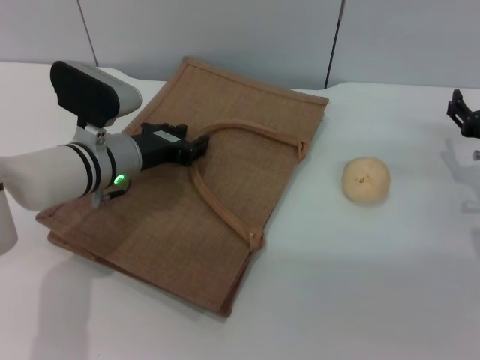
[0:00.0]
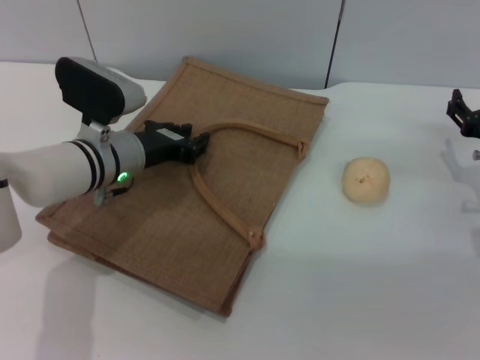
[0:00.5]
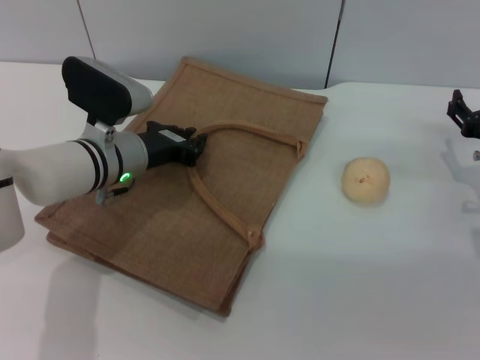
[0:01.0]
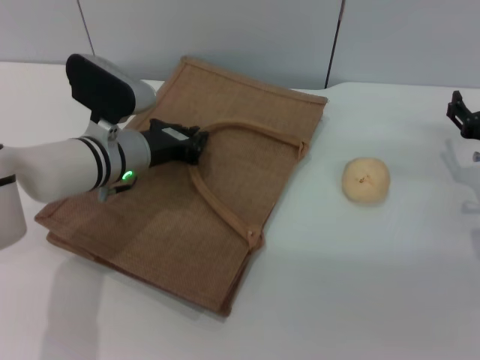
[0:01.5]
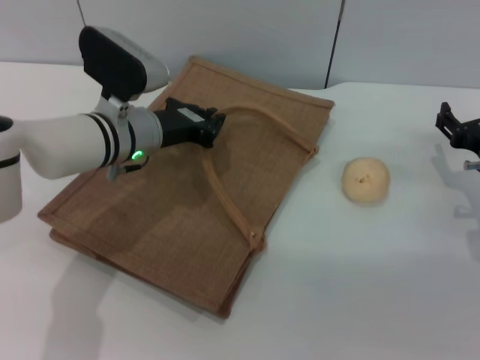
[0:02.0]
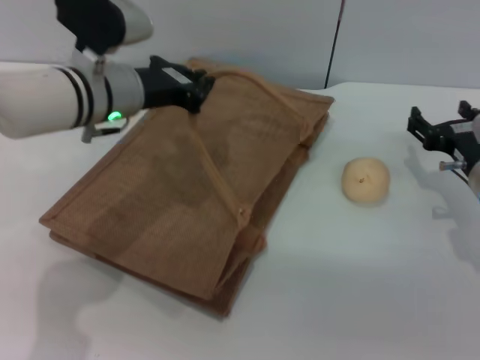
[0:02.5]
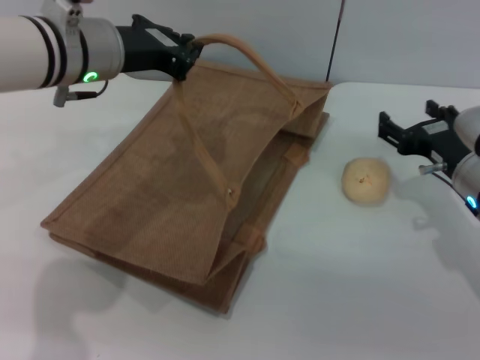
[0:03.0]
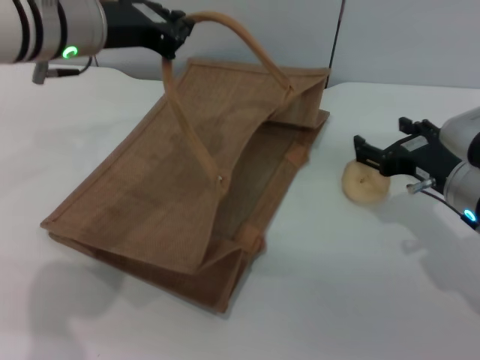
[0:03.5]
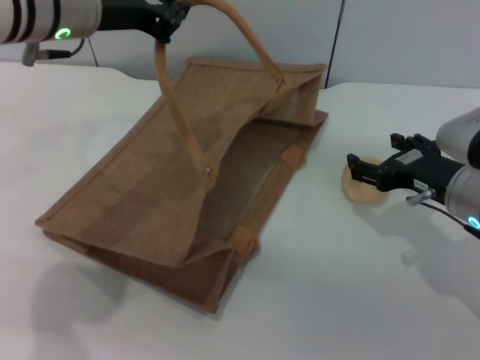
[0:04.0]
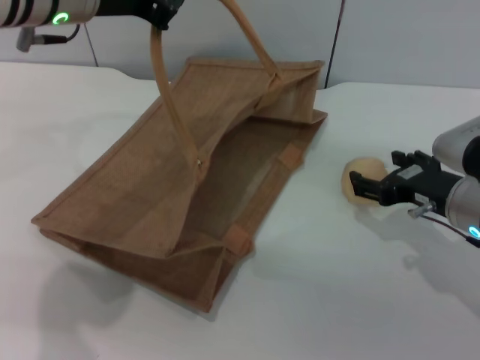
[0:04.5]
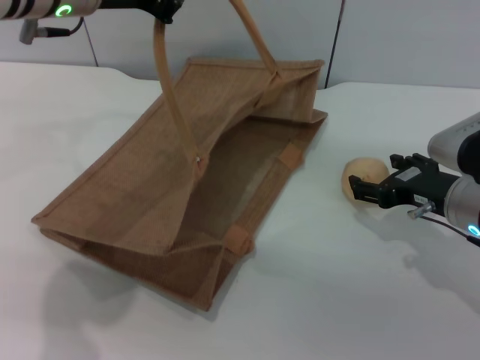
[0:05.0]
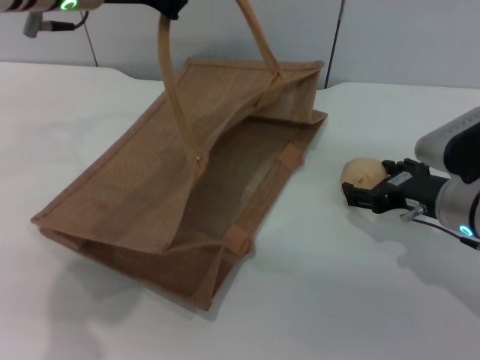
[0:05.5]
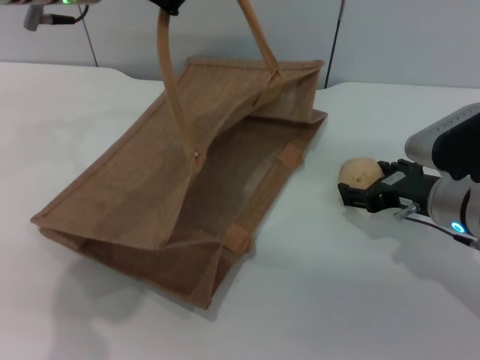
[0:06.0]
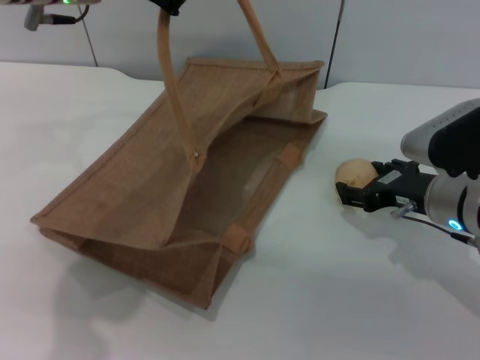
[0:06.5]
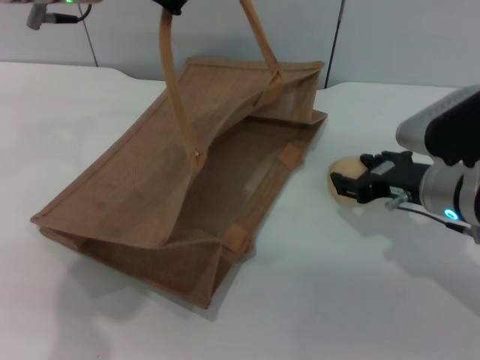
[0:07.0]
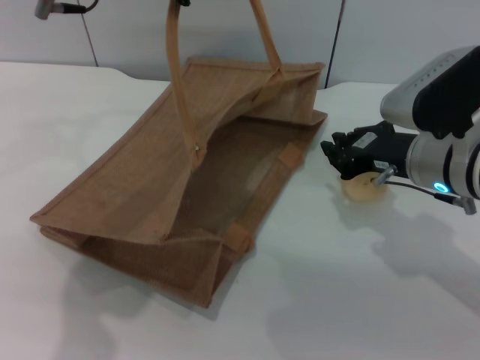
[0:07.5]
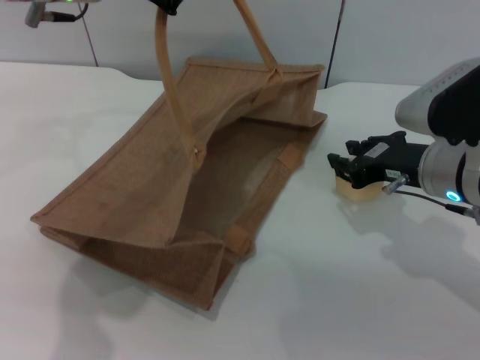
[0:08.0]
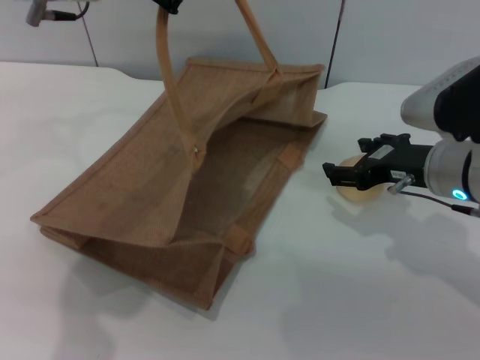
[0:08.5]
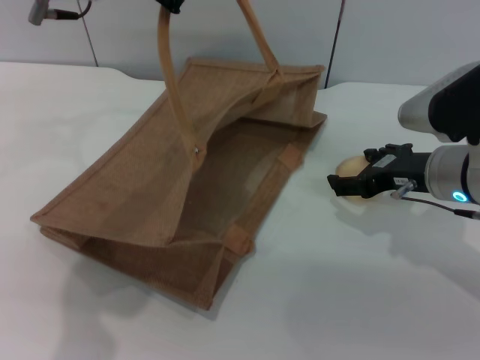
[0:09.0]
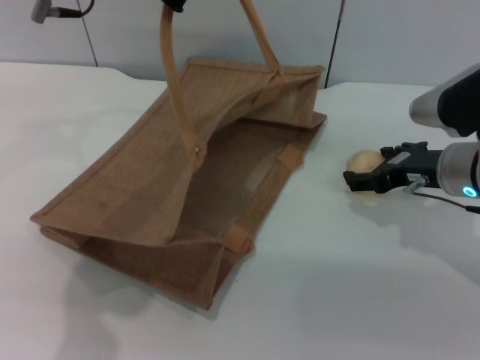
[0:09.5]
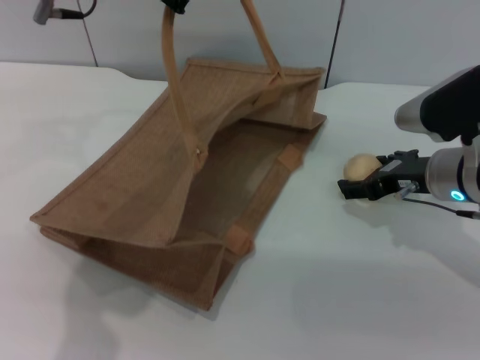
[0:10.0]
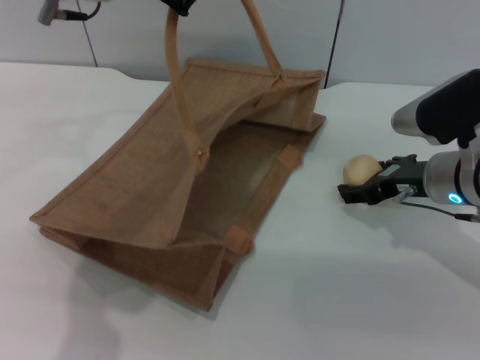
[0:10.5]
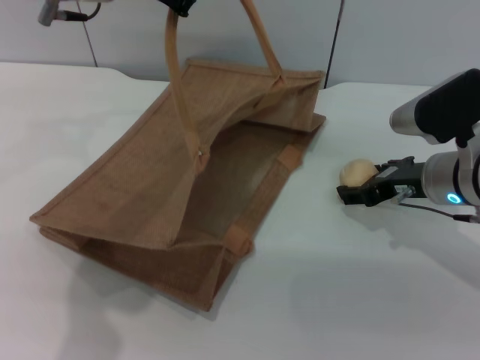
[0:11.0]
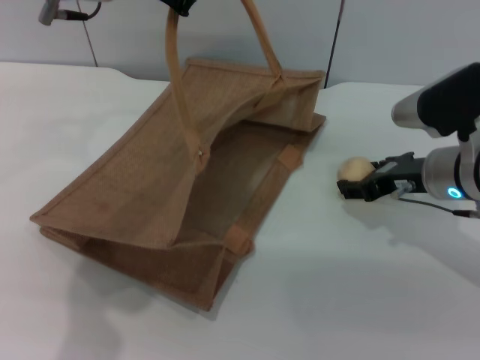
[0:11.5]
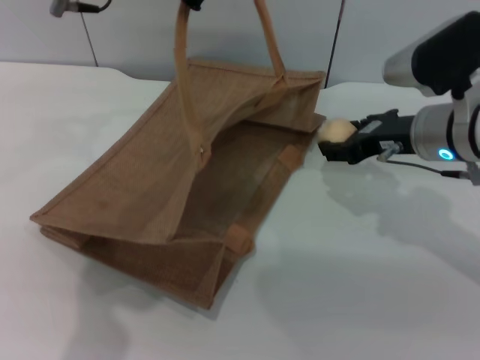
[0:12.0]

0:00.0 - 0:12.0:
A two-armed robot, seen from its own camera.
Task of the whole recording: pick up the egg yolk pastry from the table and place it in the brown handbag.
0:00.0 - 0:02.0: The left gripper closes.
0:02.0 - 0:04.0: The right gripper is displaced to the left by roughly 5 cm. Meanwhile the left gripper goes approximately 15 cm upward.
0:04.0 - 0:06.0: The grippers make only small movements.
0:06.0 - 0:08.0: The right gripper closes.
0:08.0 - 0:10.0: The right gripper opens its fingers.
0:10.0 - 0:12.0: The right gripper ends up approximately 5 cm from where it was, and closes its fingers.

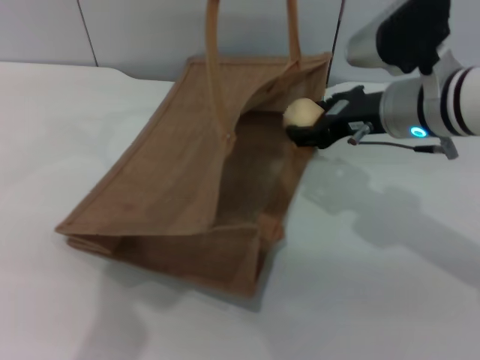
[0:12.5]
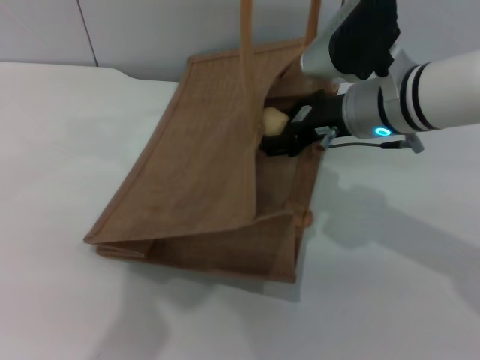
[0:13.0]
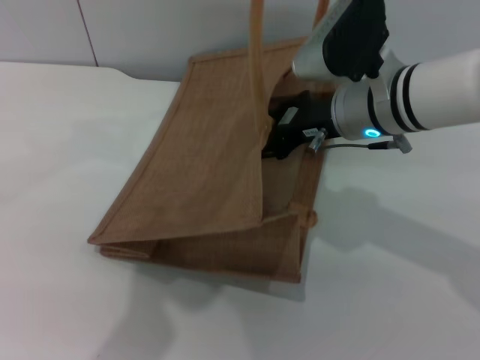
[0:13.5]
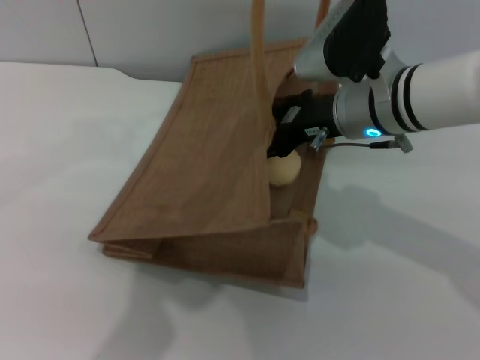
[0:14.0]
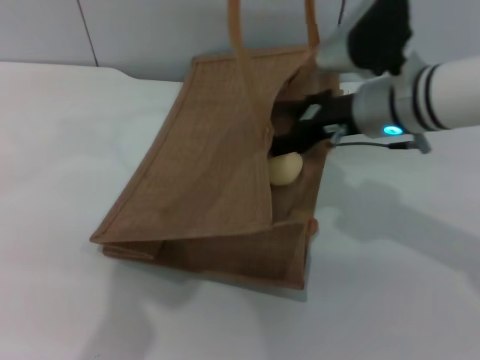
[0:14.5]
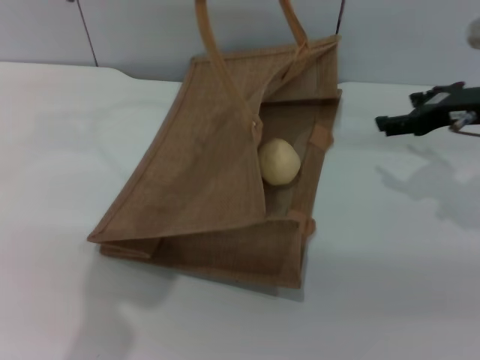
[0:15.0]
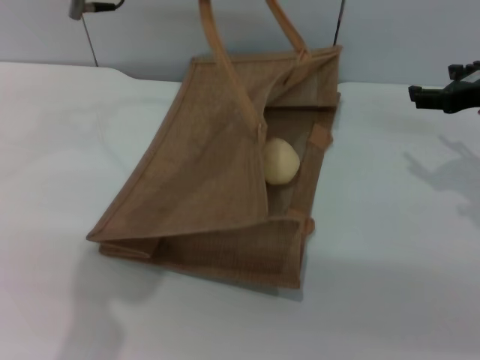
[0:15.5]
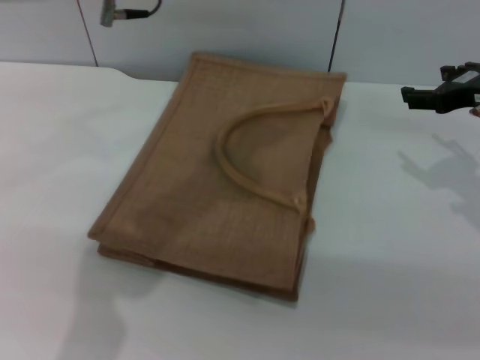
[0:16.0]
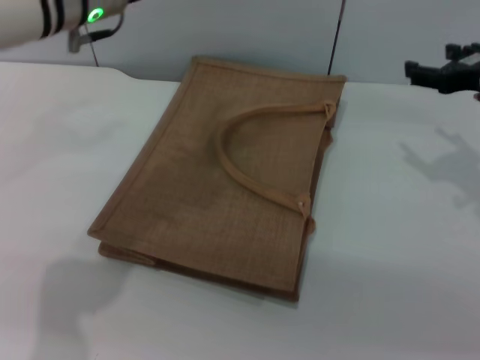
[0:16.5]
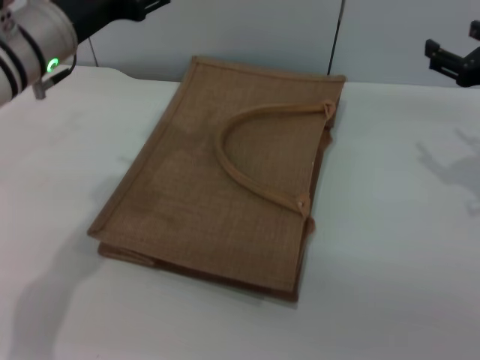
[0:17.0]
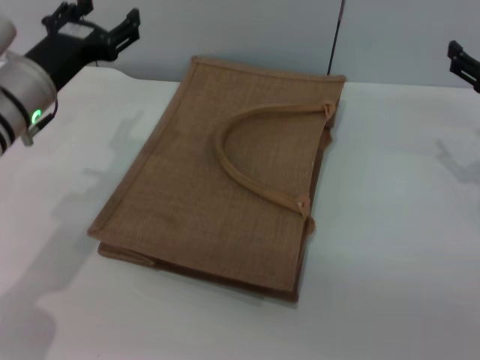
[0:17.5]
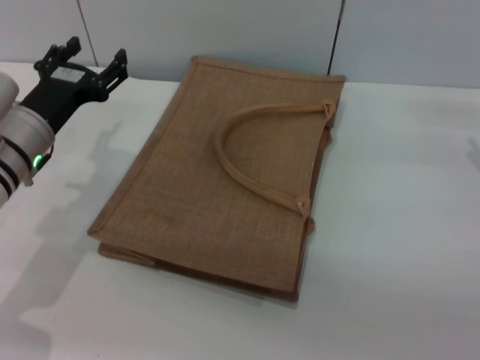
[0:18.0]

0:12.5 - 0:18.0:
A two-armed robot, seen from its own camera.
Task of the whole recording: pick up the egg yolk pastry from the table and place it in the brown handbag.
Step, 0:12.5 - 0:14.5: Place the egg yolk pastry into the woven bag with the right gripper.
Step, 0:15.5 - 0:16.0: Lower the woven bag with the left gripper to close it.
0:14.5 - 0:16.0: The right gripper travels to the right by about 15 cm. Meanwhile the left gripper opens.
0:16.0 - 0:18.0: The right gripper goes approximately 10 cm downward and to the right. The left gripper travels downward and to the left by some 25 cm, and opens.

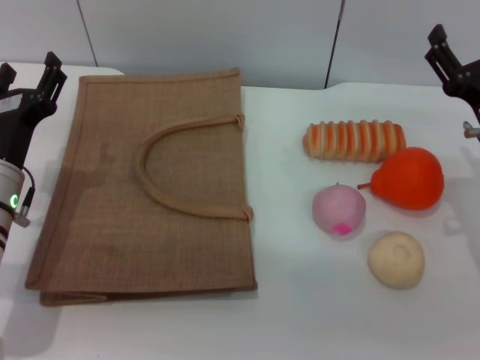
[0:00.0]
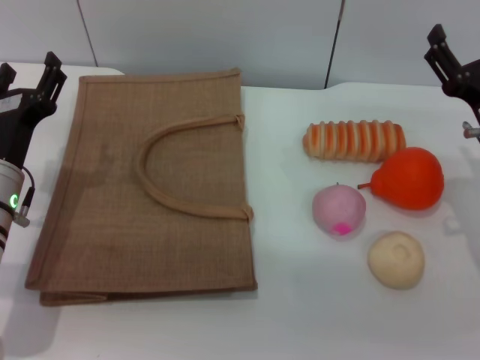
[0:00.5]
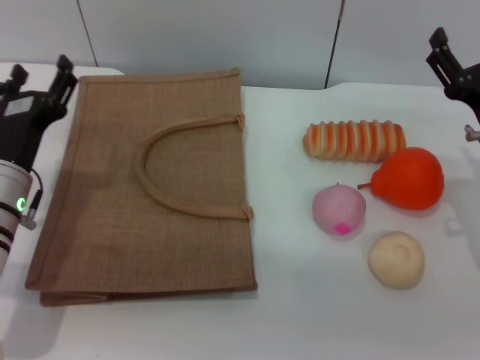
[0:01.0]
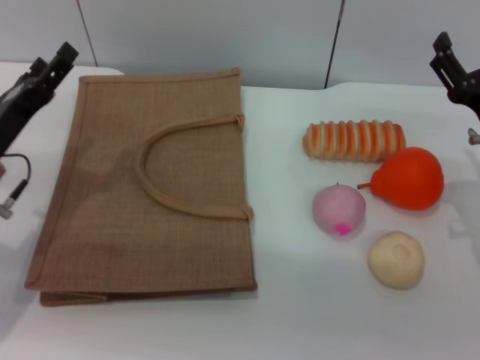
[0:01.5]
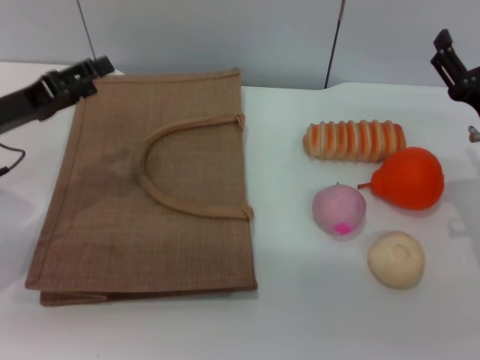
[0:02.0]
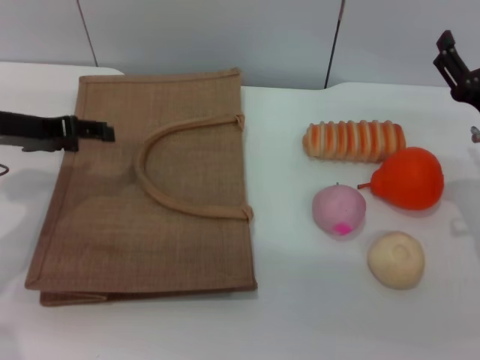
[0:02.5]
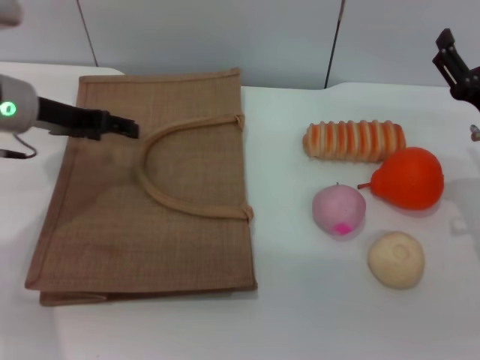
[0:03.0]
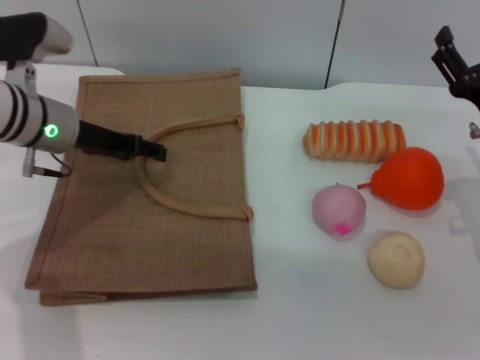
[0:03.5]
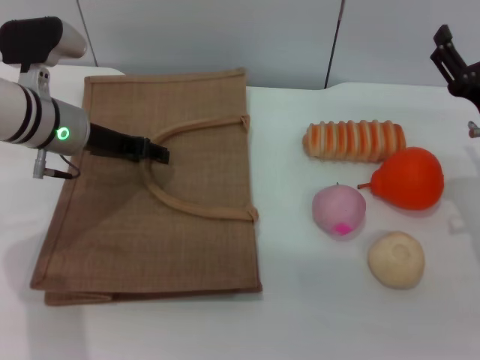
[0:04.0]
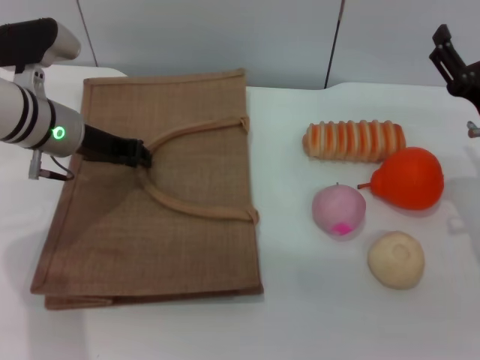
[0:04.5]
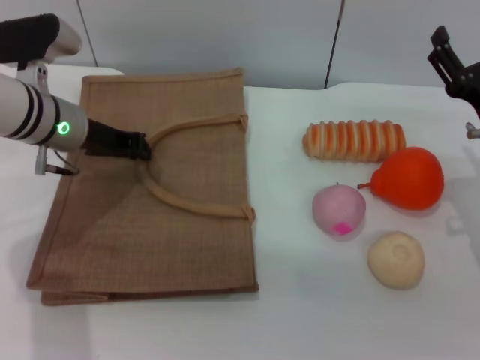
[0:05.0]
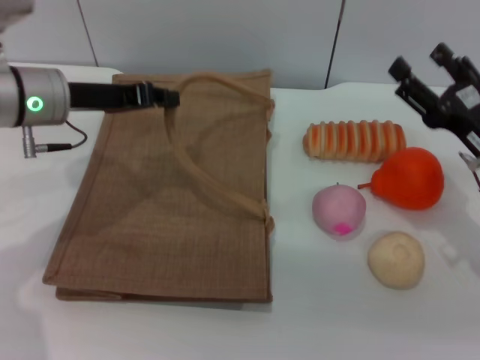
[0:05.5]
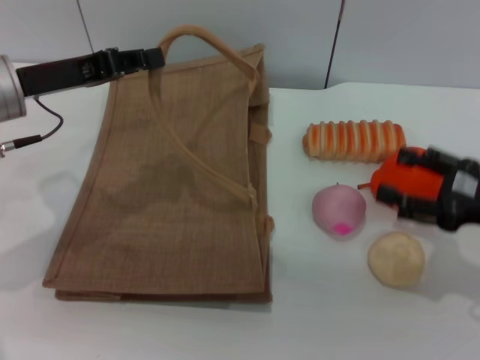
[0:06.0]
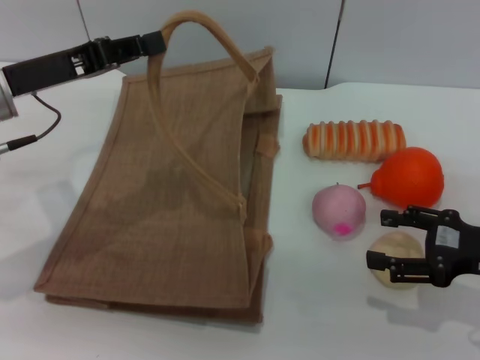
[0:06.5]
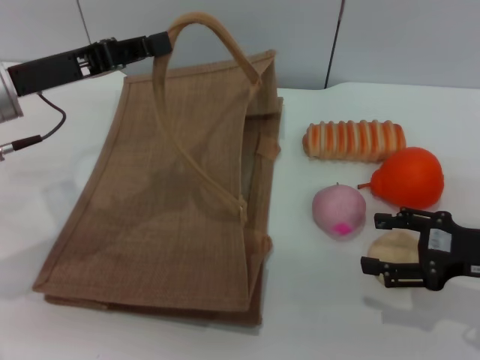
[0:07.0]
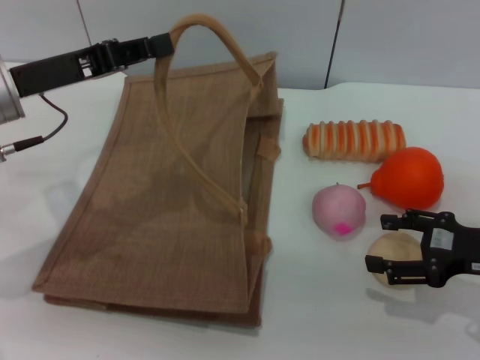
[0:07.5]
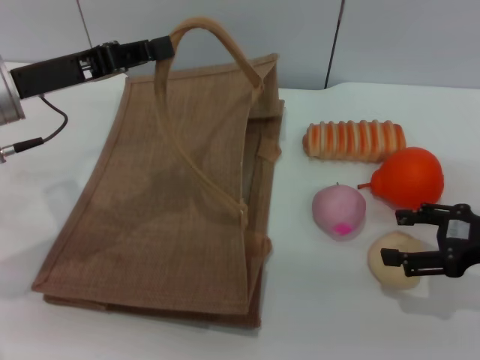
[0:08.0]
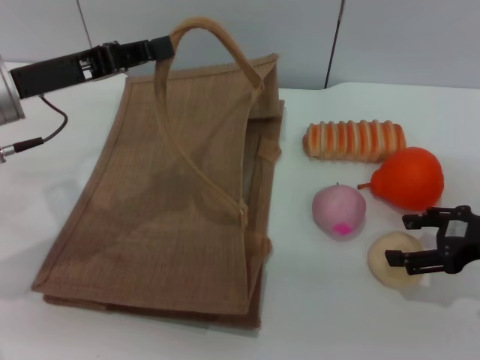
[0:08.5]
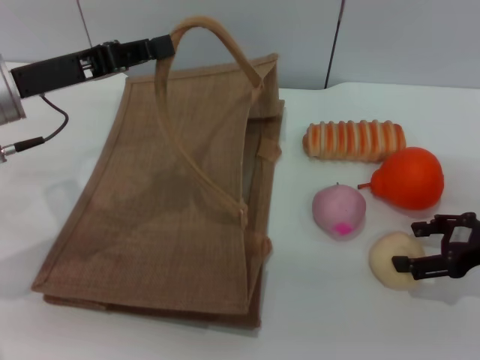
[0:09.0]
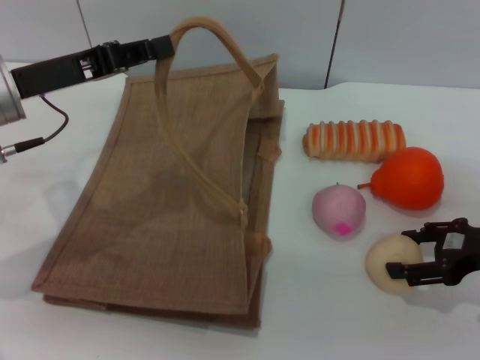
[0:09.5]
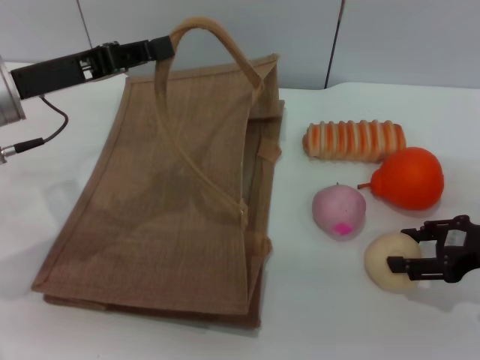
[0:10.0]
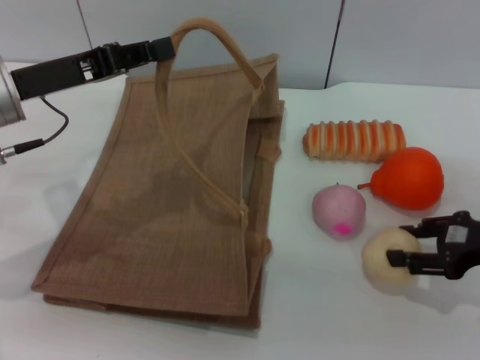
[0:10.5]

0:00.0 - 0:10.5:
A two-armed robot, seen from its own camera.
Task of the whole recording: pick up the egg yolk pastry from the table and place it in the brown handbag.
Step, 0:00.0 - 0:05.0: Lift the woven bag with the left gripper to open it.
0:00.0 - 0:02.0: The left gripper shifts approximately 10 cm upward and to the left.
0:02.0 - 0:04.0: The left gripper moves to the right and forward, roughly 10 cm.
0:04.0 - 0:06.5: The left gripper shifts approximately 10 cm backward and upward, and closes; the right gripper goes approximately 5 cm backward.
0:06.5 - 0:08.5: The grippers make only small movements.
0:08.5 - 0:10.5: The right gripper closes up.
